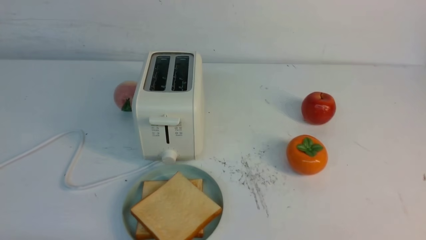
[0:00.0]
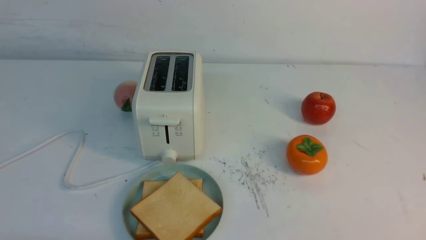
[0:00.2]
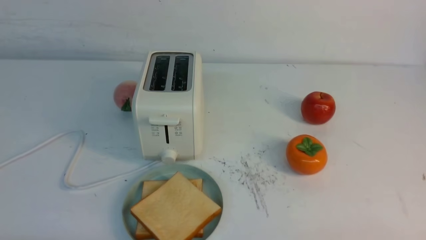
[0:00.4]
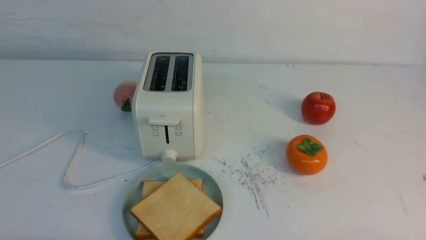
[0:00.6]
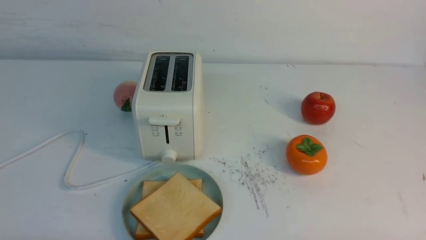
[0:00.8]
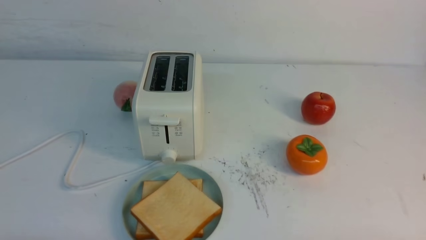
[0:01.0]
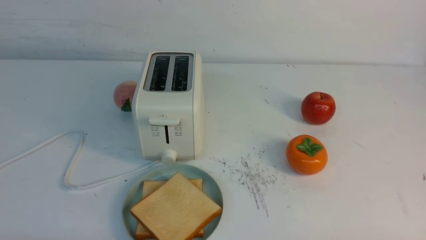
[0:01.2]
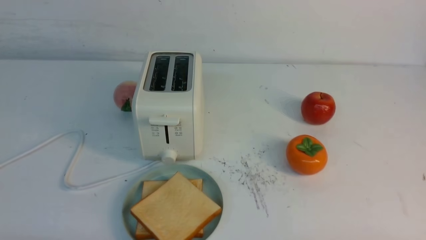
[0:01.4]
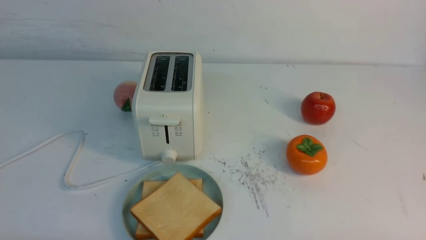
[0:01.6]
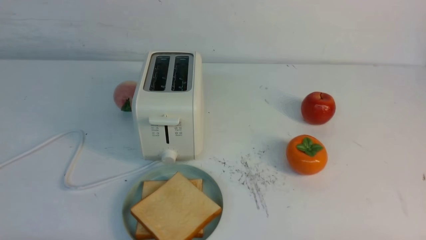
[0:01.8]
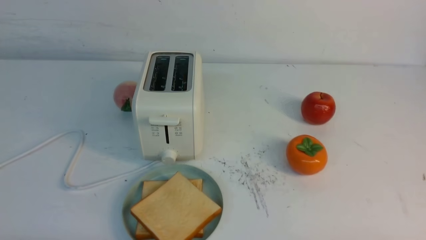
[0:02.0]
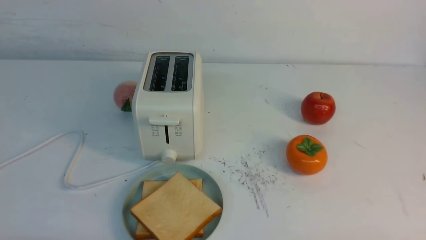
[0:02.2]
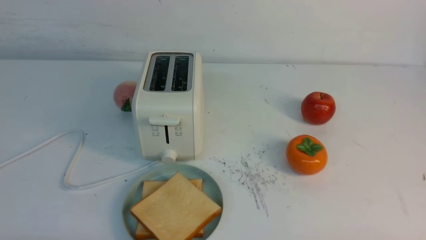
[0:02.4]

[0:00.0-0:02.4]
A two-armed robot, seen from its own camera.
Task of the whole recording: take toasted bread from bread machine on white table place on plate.
0:01.2 to 0:02.4: Both grippers stay put.
